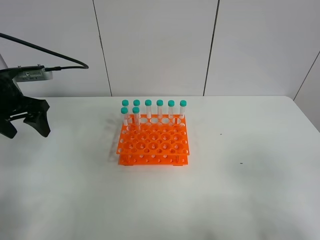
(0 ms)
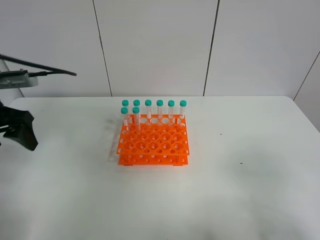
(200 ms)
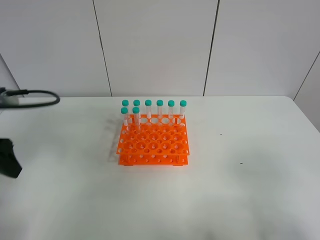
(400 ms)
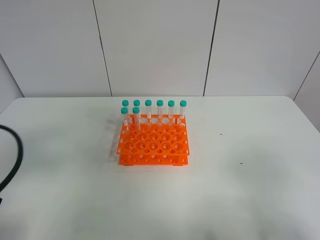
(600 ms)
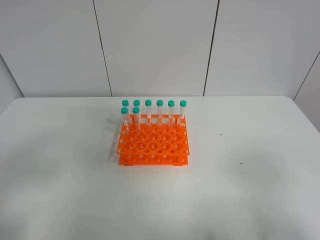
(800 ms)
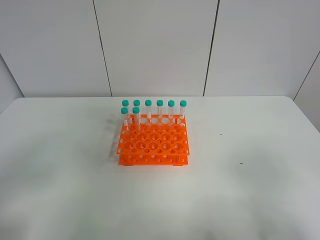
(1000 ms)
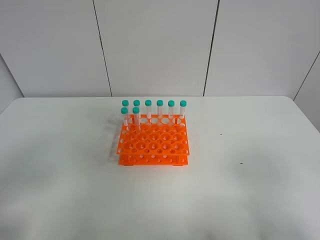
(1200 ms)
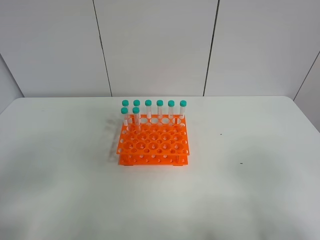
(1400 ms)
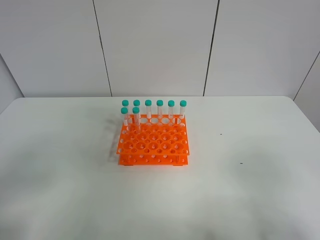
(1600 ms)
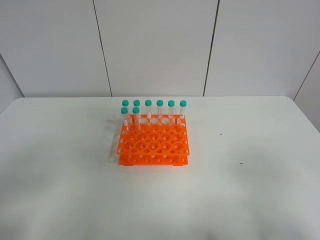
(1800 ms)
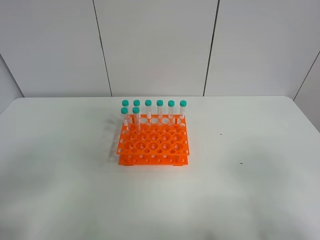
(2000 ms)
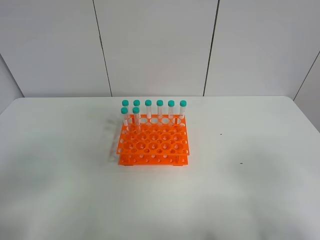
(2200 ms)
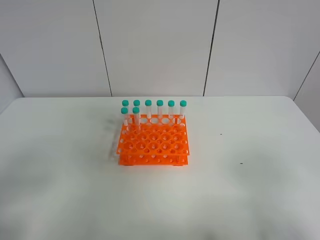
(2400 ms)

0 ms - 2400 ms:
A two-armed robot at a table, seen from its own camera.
Task of the whole recording: Put the test tube on the table back onto the test tube rack.
0 ms - 1200 ms: The left gripper is displaced backward by some 30 cm.
